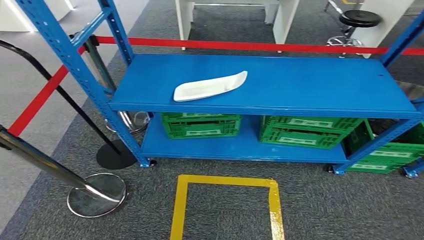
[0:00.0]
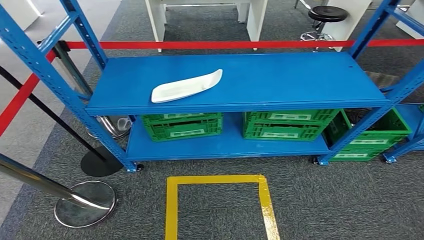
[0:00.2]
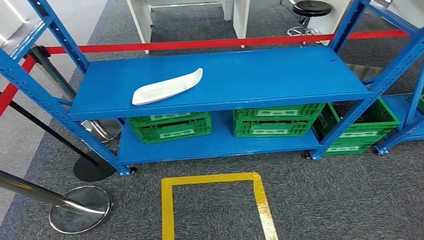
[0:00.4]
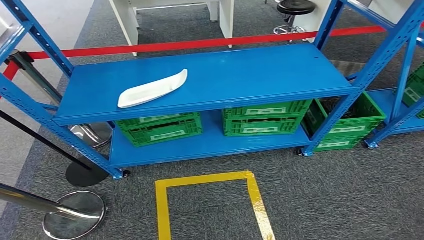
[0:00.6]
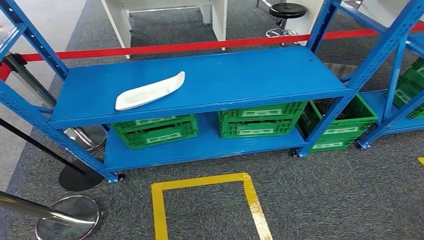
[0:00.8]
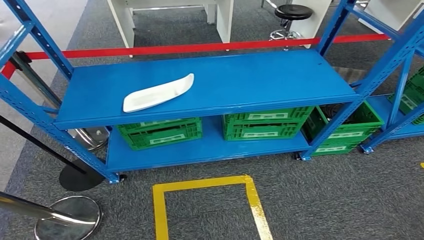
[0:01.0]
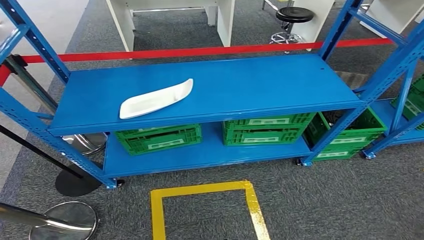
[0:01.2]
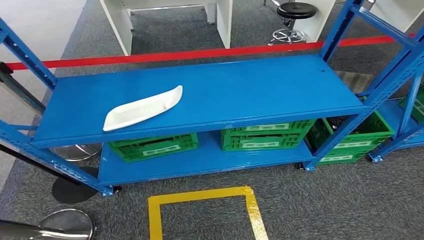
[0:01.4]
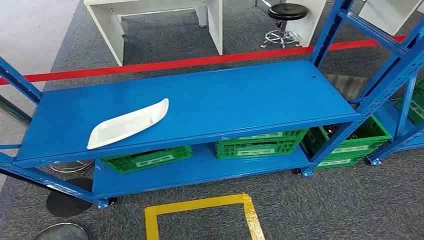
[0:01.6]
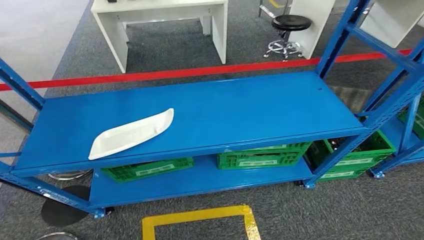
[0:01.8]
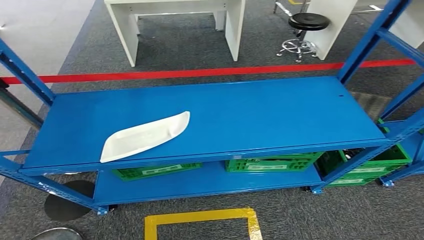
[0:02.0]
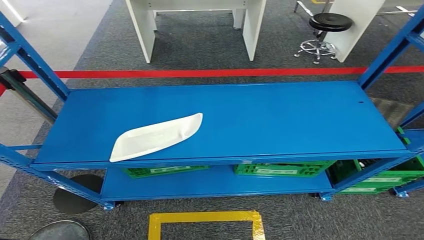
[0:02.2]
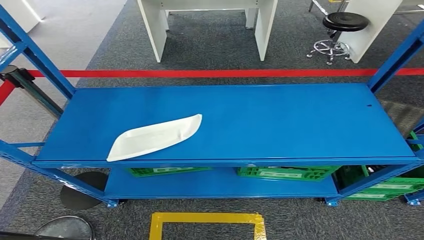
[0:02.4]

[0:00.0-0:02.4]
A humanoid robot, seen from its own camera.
Step, 0:00.0 to 0:02.4: Move to the initial position at the workbench.

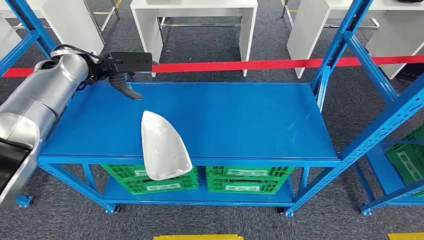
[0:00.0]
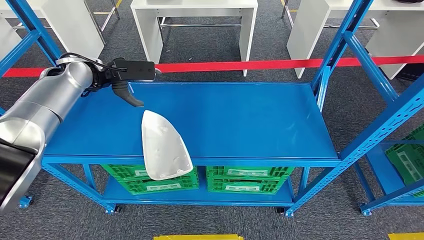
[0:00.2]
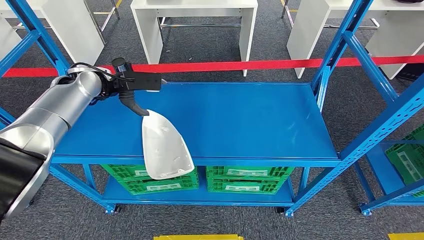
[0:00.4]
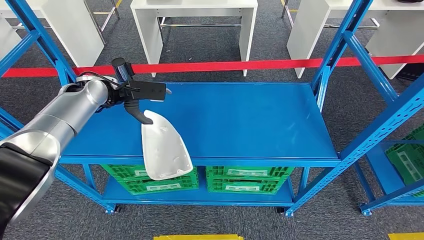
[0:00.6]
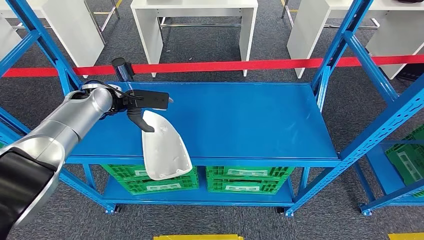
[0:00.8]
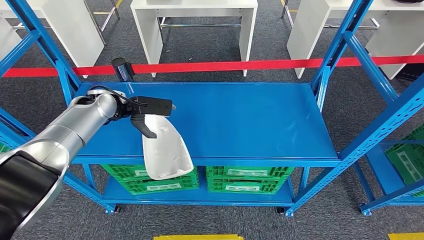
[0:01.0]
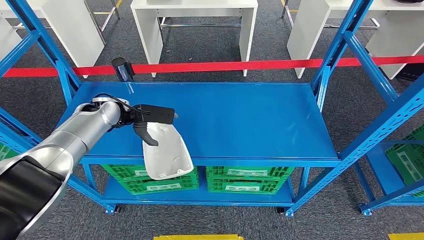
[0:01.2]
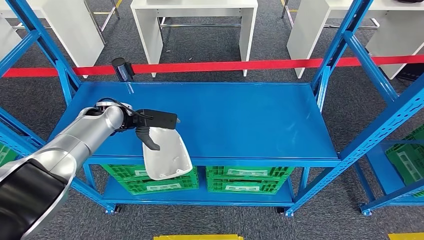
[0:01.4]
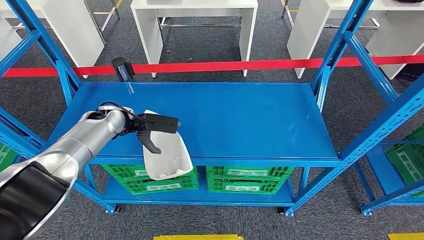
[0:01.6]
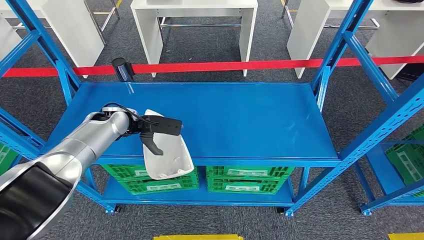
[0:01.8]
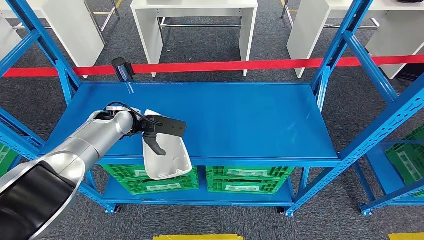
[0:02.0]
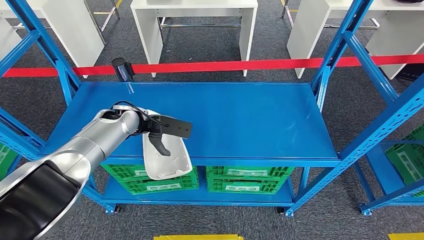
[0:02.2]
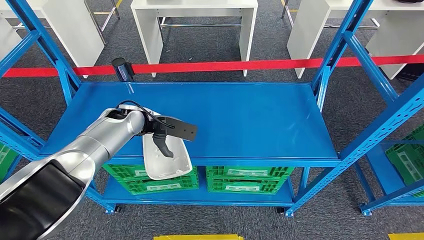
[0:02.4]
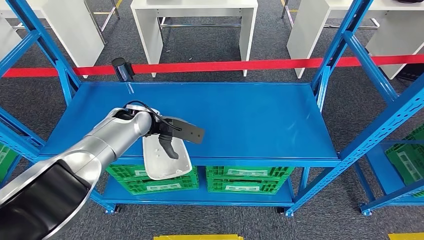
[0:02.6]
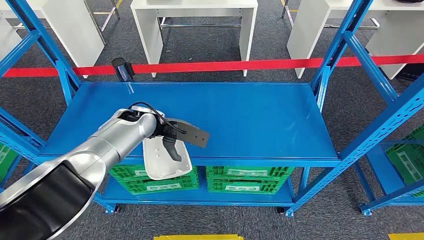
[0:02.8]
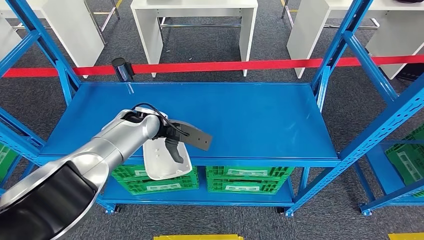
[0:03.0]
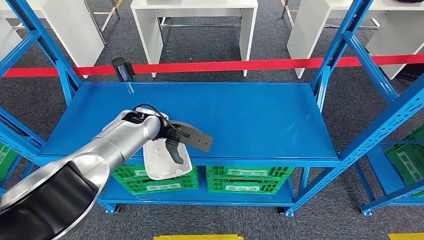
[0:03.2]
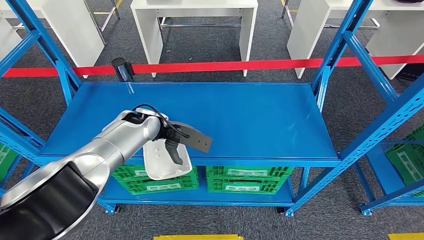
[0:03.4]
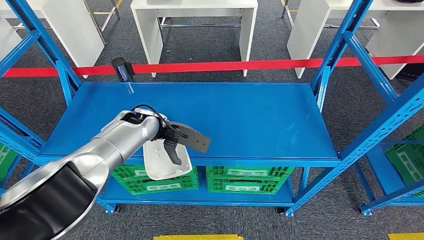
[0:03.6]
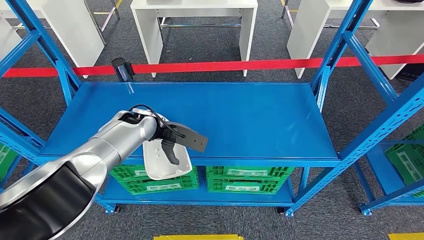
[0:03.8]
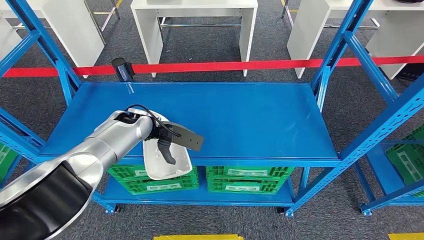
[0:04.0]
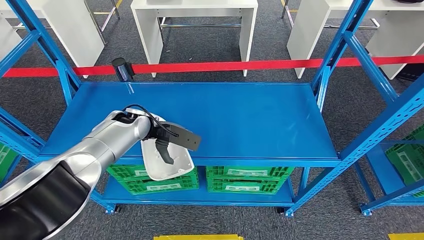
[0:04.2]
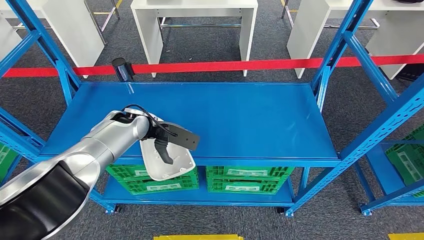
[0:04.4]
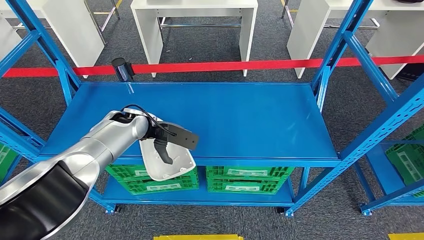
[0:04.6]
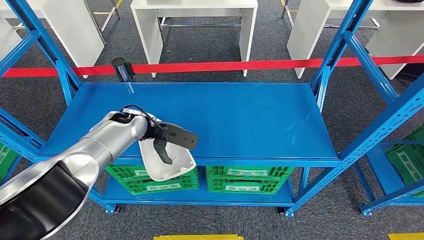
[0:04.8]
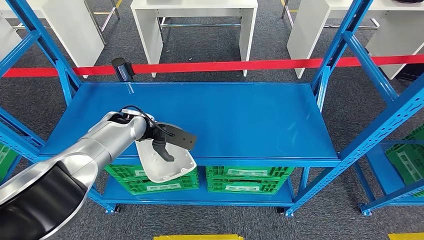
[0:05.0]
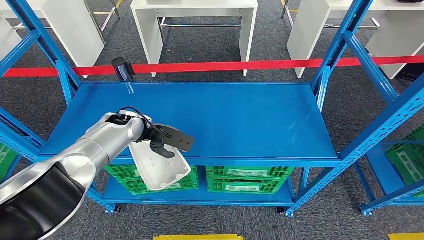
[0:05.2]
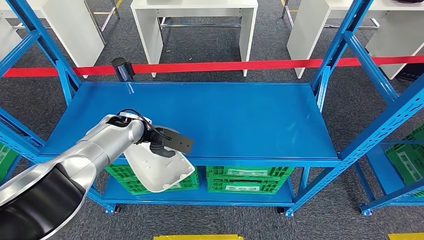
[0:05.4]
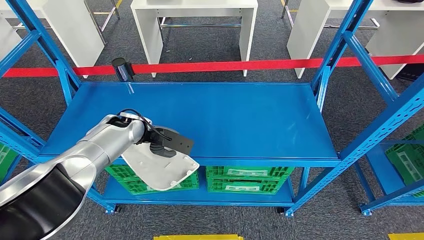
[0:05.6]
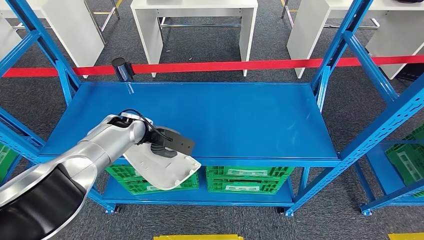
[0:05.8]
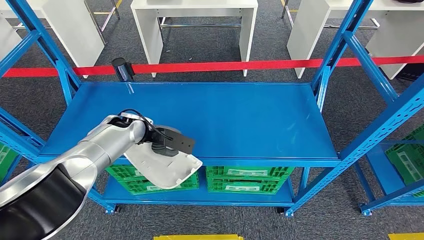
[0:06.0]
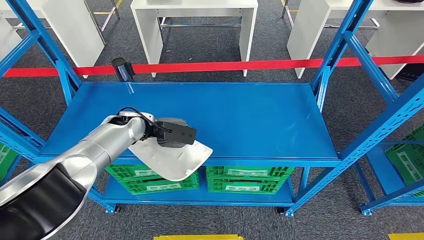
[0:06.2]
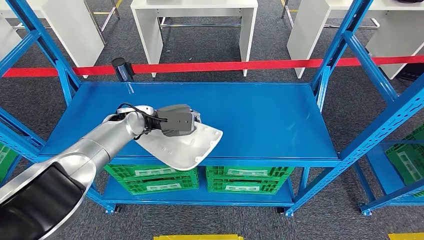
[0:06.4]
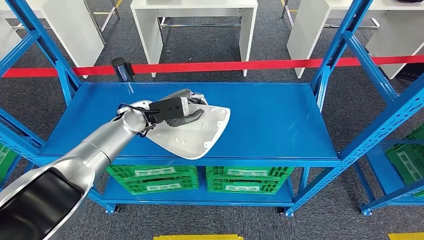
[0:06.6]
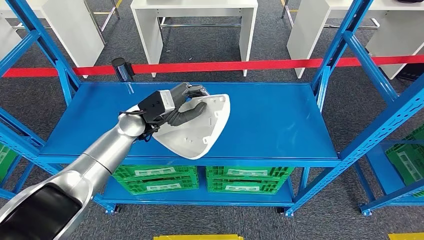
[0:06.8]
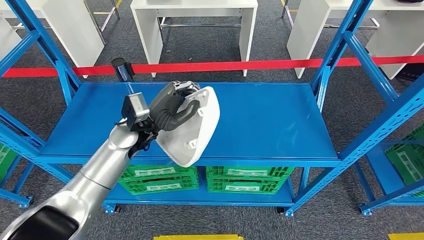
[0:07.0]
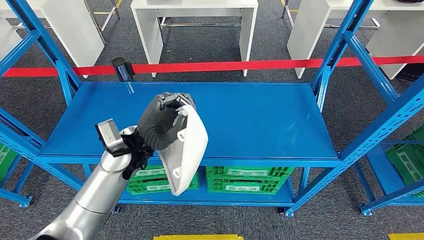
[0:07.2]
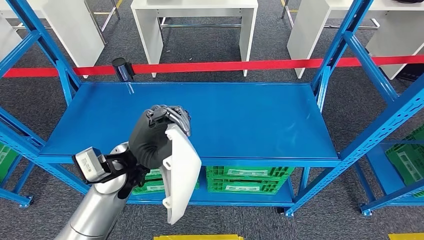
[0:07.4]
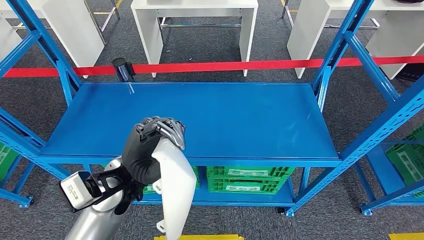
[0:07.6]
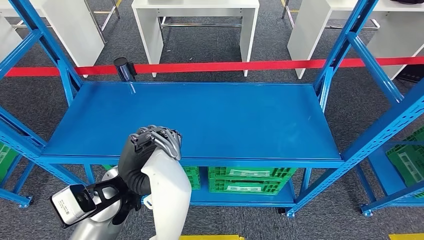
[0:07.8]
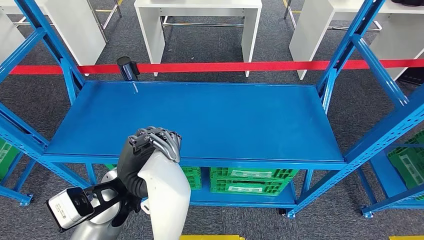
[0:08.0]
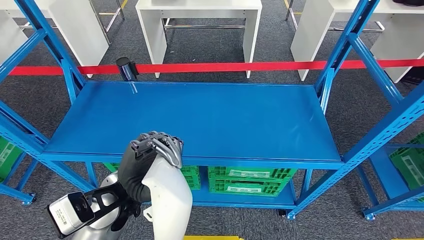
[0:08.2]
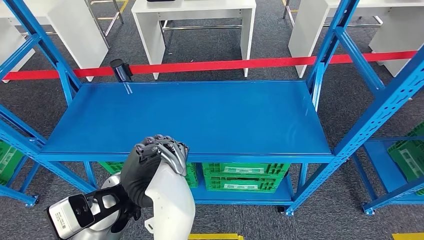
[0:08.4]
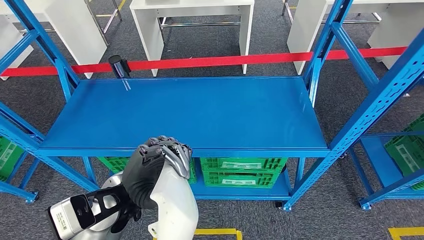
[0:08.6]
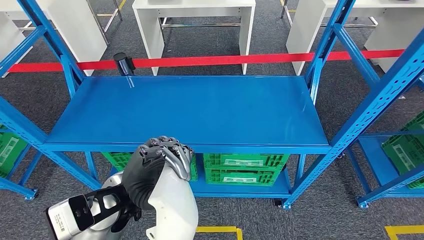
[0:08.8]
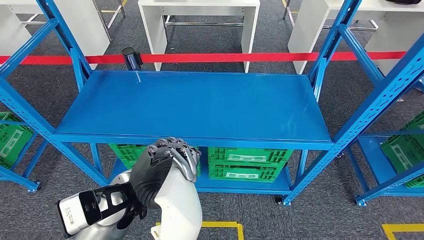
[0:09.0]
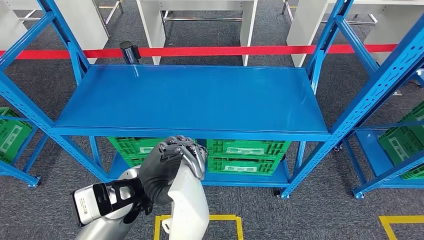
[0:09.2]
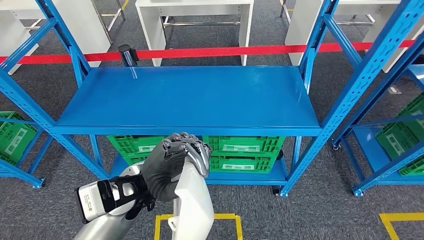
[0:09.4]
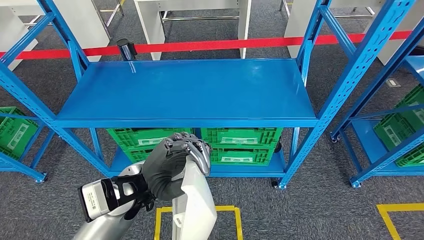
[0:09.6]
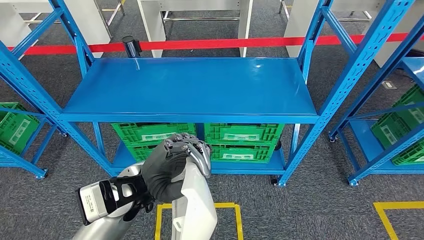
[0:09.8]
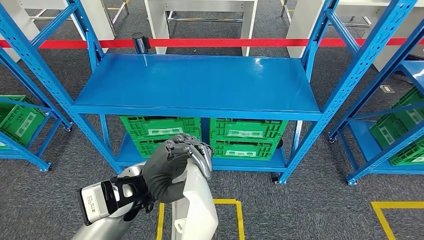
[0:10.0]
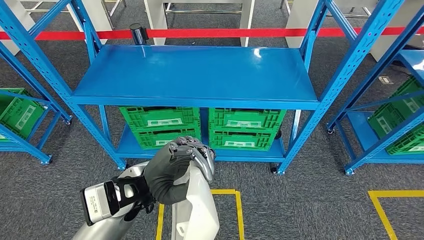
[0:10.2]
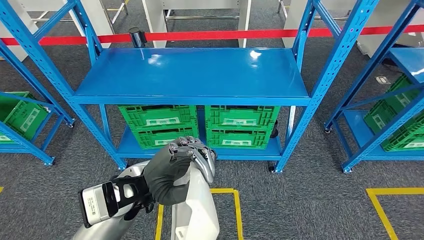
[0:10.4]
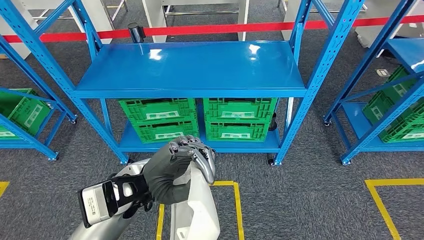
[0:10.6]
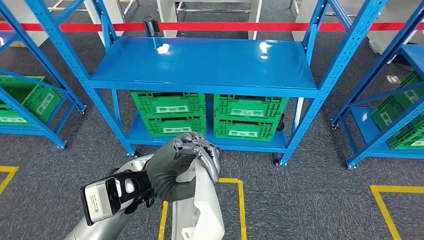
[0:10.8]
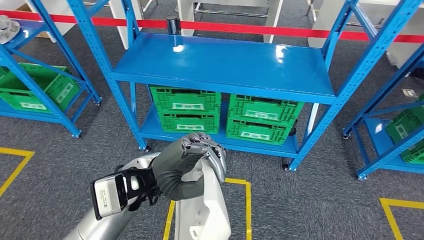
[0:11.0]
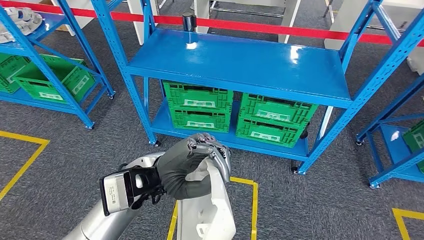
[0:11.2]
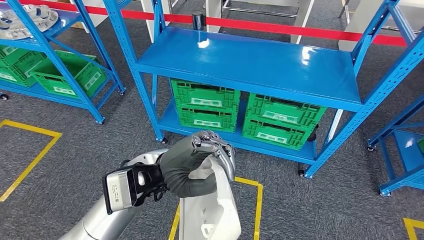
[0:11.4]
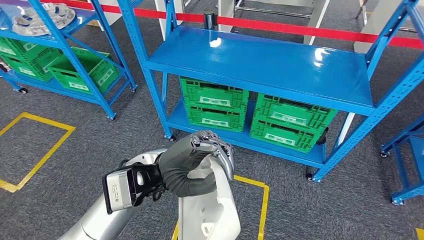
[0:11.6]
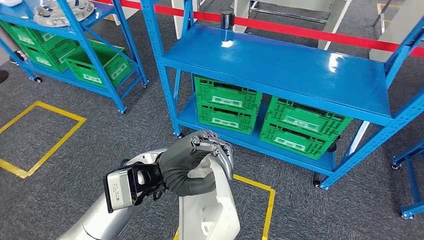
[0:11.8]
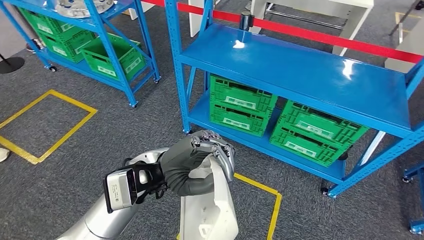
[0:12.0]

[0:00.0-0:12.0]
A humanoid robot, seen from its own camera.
Step, 0:00.0 to 0:09.6: Pick up the small parts from the shelf.
0:01.6 to 0:03.0: The left hand is displaced to the right by about 10 cm.
0:03.0 to 0:06.0: The hands make only small movements.
0:06.0 to 0:07.6: The left hand goes about 15 cm backward.

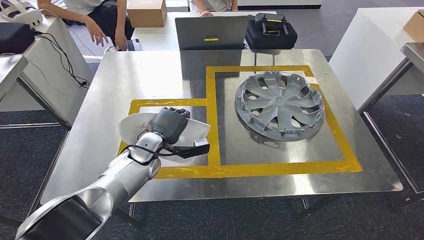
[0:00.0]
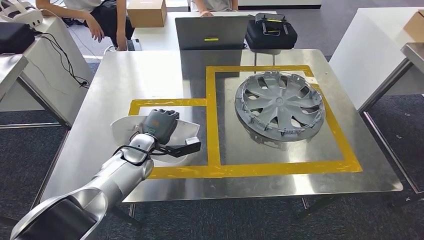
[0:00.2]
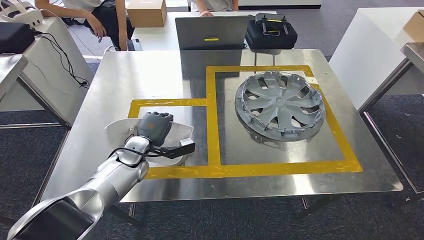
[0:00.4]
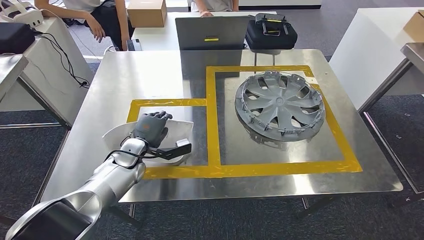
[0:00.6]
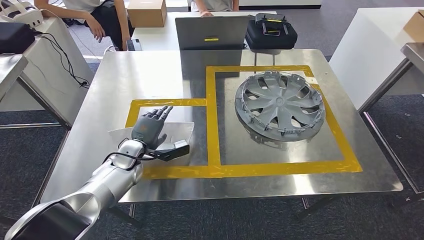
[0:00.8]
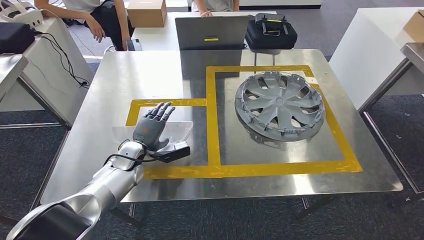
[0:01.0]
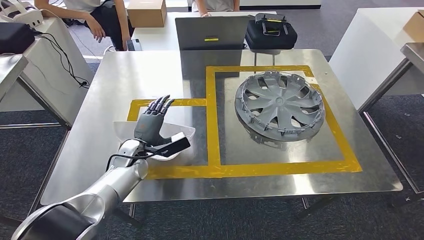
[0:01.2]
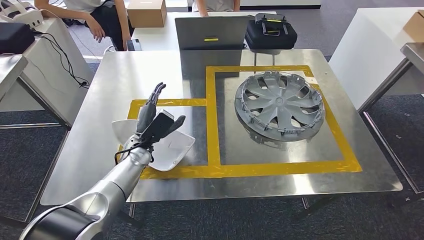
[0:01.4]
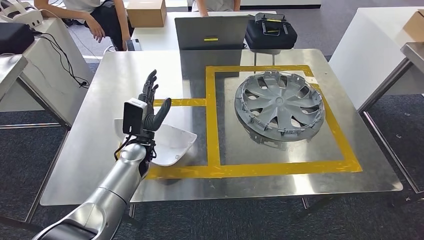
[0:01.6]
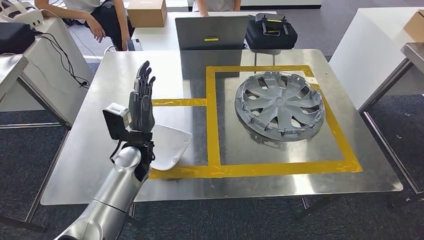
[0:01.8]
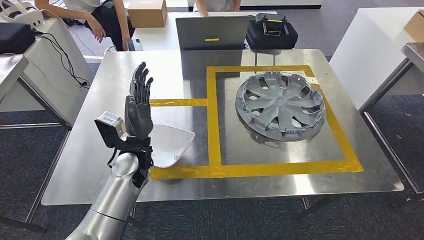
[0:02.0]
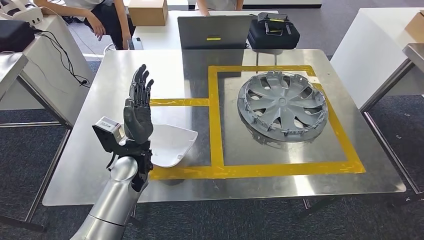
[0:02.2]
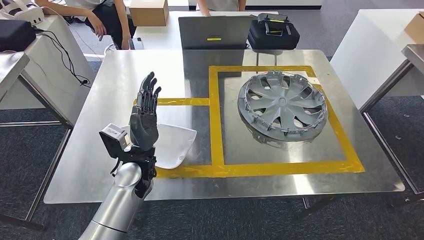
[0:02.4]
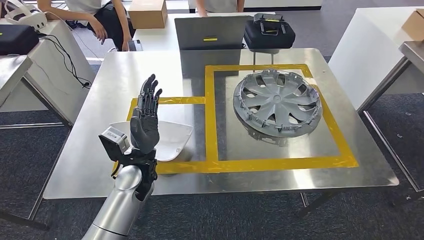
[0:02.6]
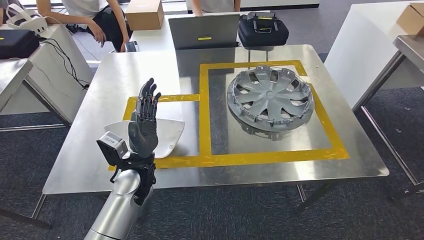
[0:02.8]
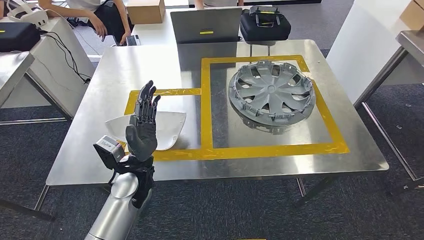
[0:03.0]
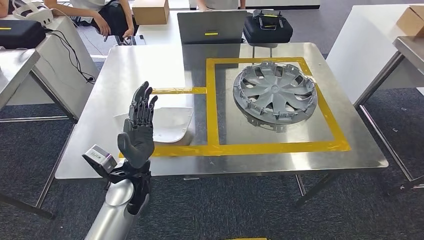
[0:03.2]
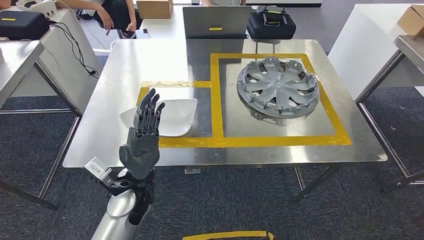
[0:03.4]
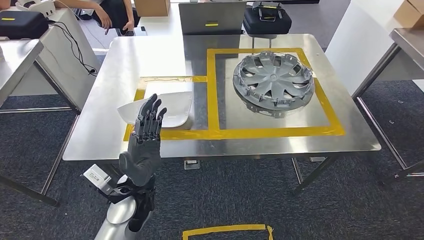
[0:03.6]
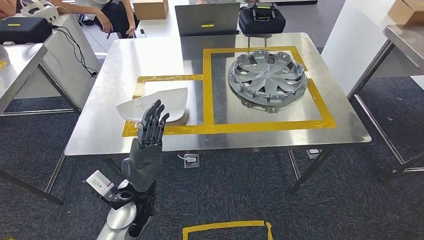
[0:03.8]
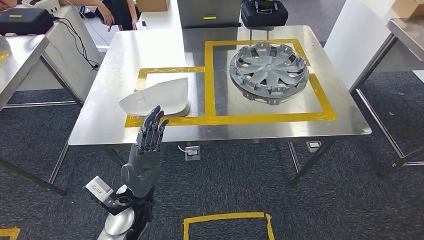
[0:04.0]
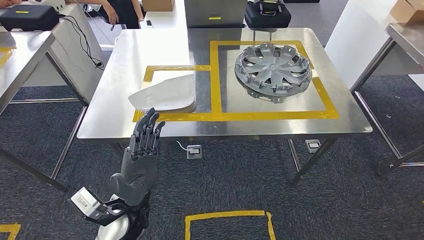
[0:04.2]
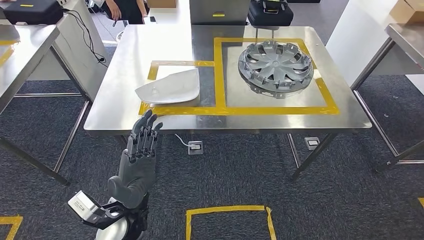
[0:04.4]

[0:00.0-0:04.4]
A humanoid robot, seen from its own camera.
Step, 0:00.0 to 0:02.8: Insert the small parts into the corresponding holes on the workbench.
